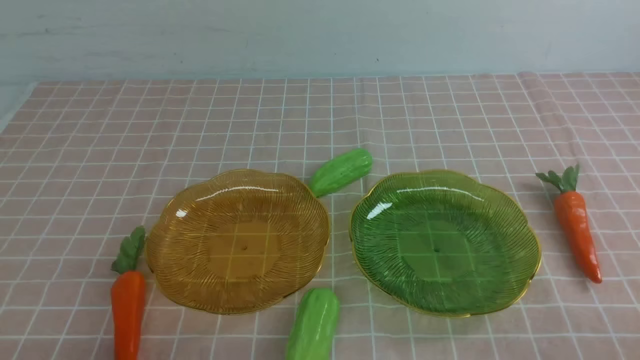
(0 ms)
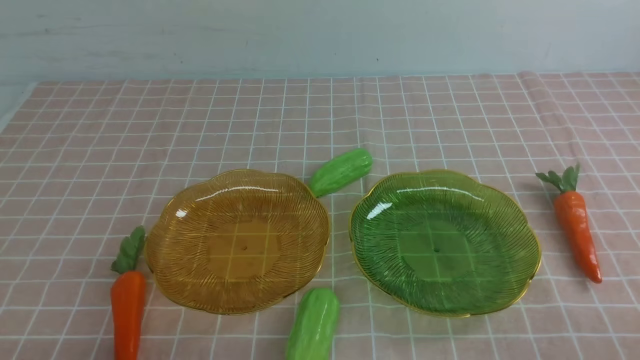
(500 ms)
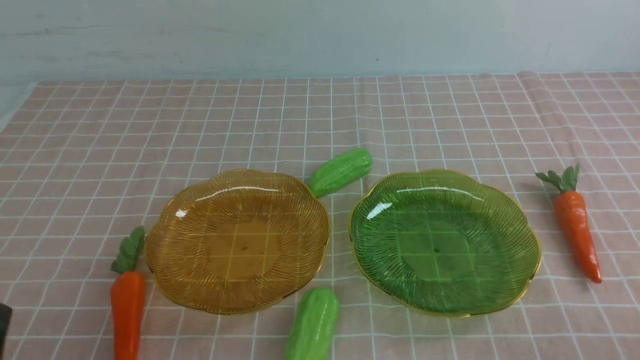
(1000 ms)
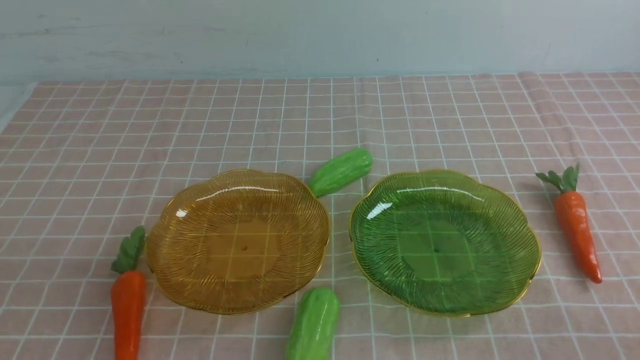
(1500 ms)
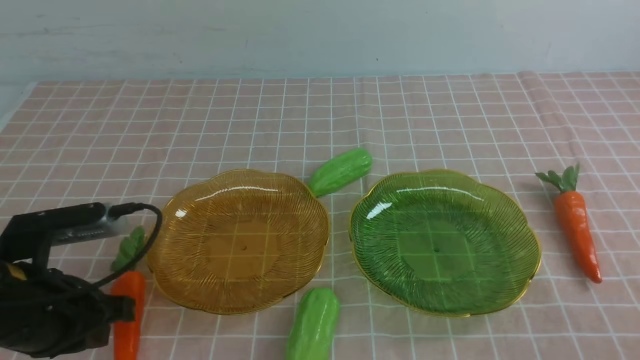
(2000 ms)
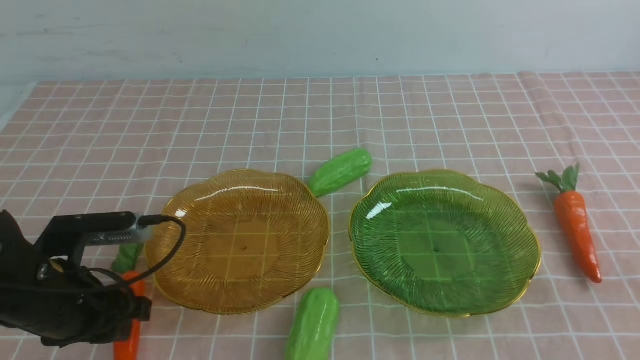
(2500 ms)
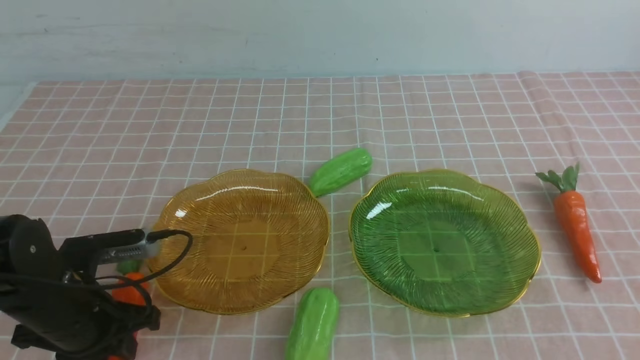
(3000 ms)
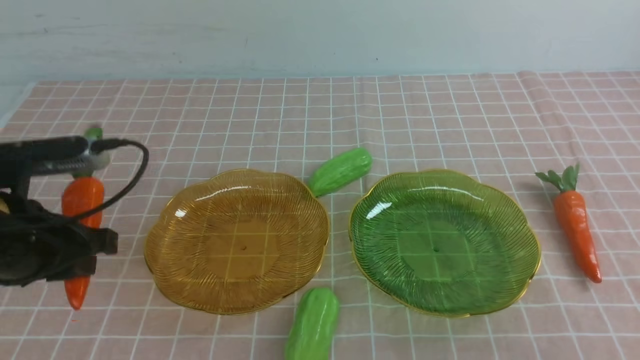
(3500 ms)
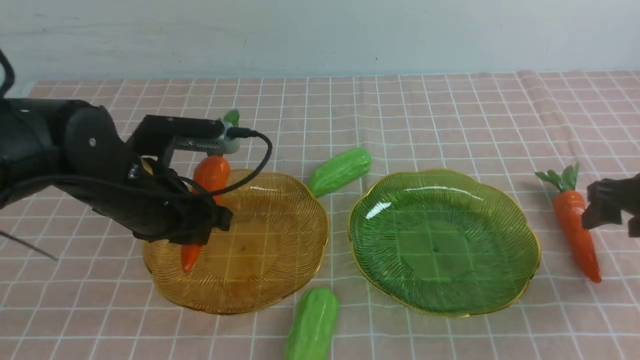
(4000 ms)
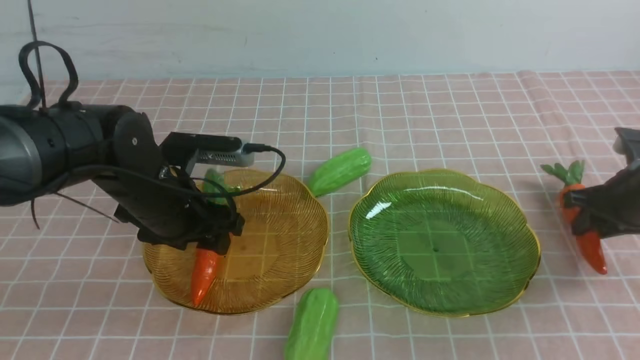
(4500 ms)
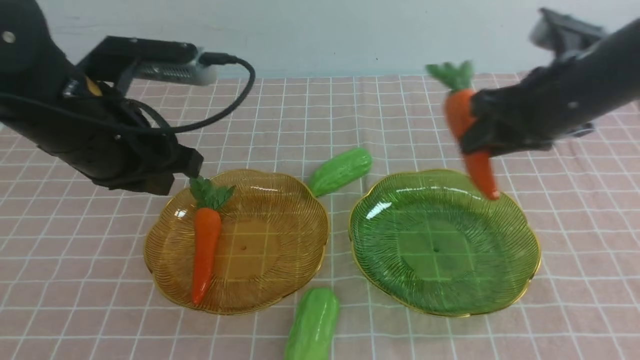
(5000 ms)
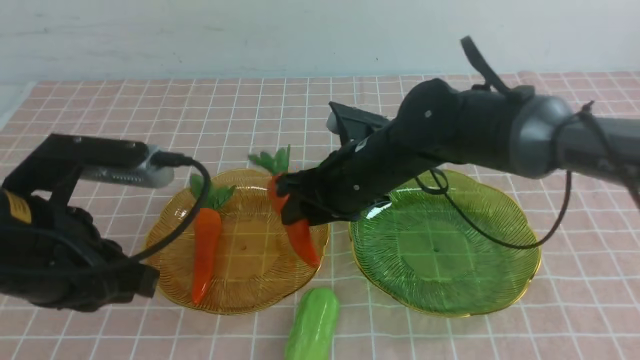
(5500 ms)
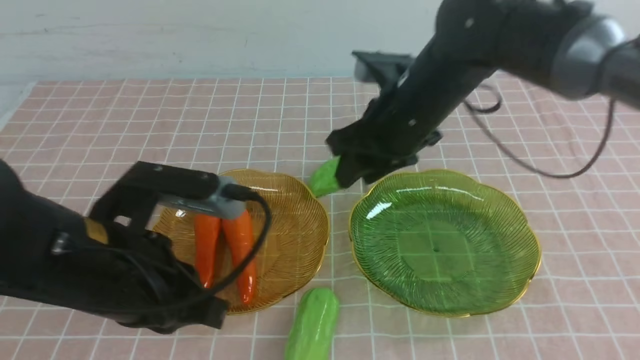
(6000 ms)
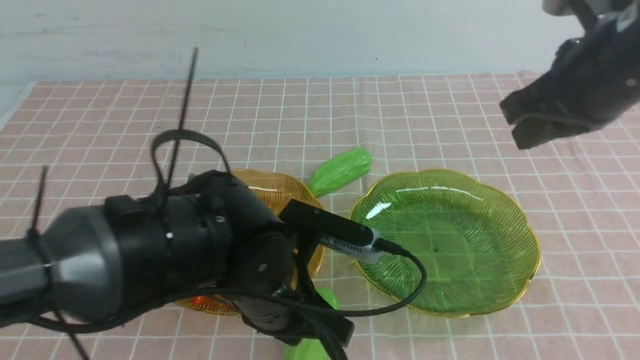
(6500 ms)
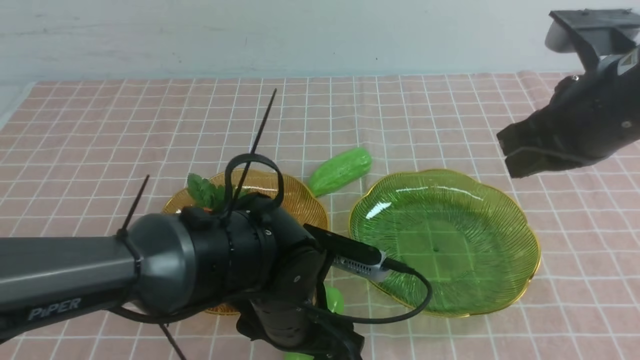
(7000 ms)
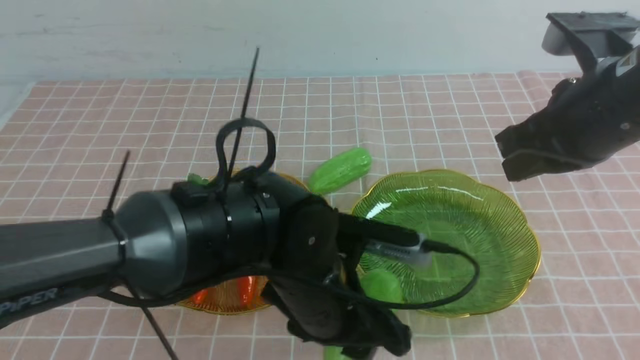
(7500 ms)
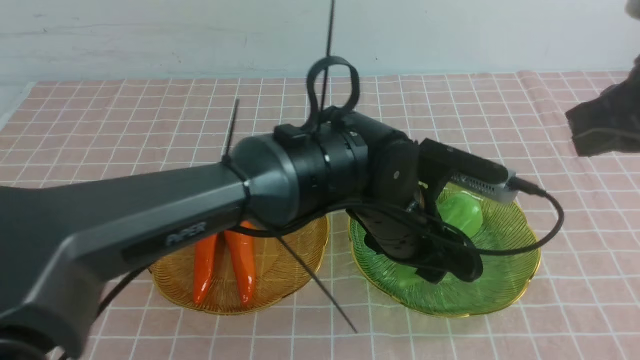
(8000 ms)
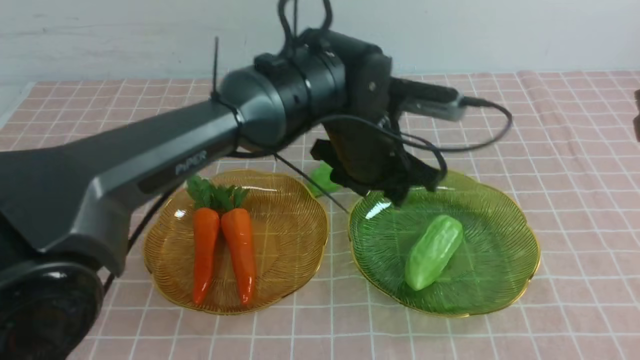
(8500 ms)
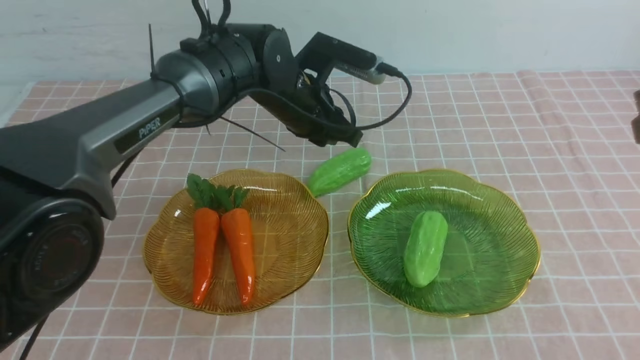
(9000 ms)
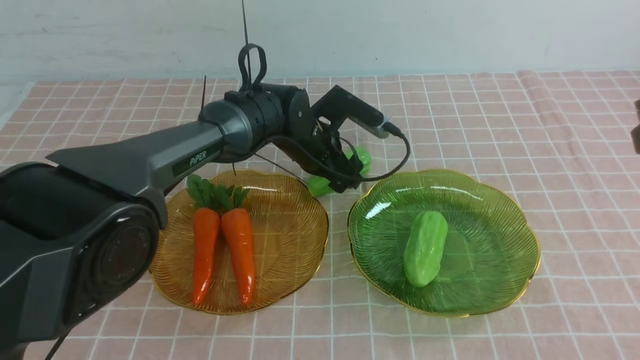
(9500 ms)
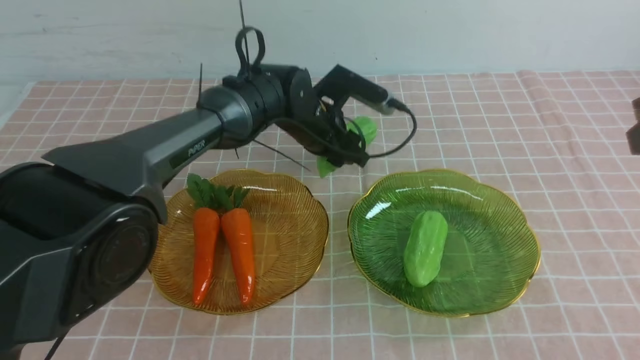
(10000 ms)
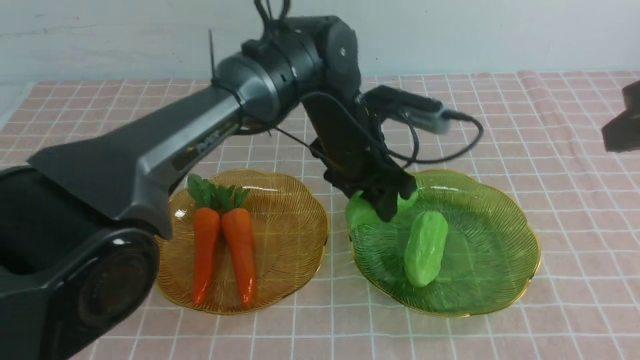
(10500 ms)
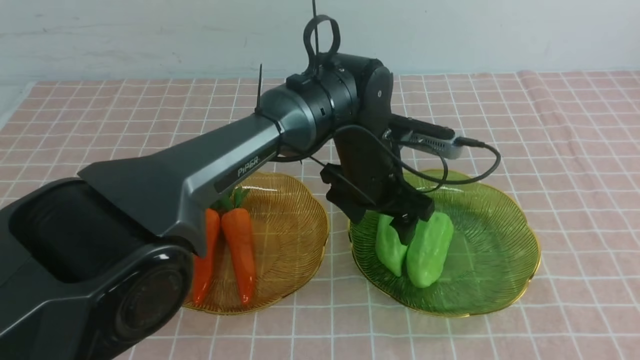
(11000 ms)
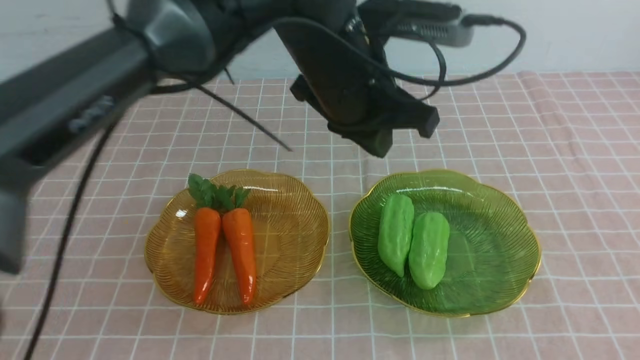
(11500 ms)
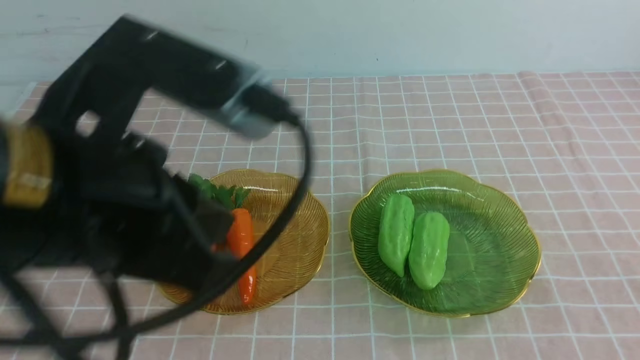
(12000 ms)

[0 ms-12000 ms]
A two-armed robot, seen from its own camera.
Step, 0 ms to 4500 ms: use the left arm to grab a carrot and put it into the left plate.
Step, 5000 ms to 5500 ms: use the right arm to grab a carrot and put it into the left plate.
Step, 6000 ms to 11000 ms: use the left arm to grab a chayote and put it into the right plate.
0 ms to 2000 ms: The left gripper heads forward and upward, covering approximately 15 cm.
2000 ms to 4000 ms: The right gripper goes roughly 30 cm forward, and opens its fingers. Meanwhile the left gripper is displaced forward and to the right by some 15 cm, and opens.
4000 ms to 6000 ms: The left gripper goes roughly 15 cm backward and to the right, and closes, while the right gripper moves upward and to the left, roughly 25 cm, and closes.
6000 ms to 8000 ms: The left gripper travels forward by roughly 20 cm, and opens and closes again. The right gripper moves backward and to the right, about 15 cm.
8000 ms to 10000 ms: The left gripper shifts some 5 cm downward, and opens up.
10000 ms to 12000 ms: The right gripper shifts roughly 20 cm backward; the left gripper moves backward and to the left, approximately 50 cm, and closes.

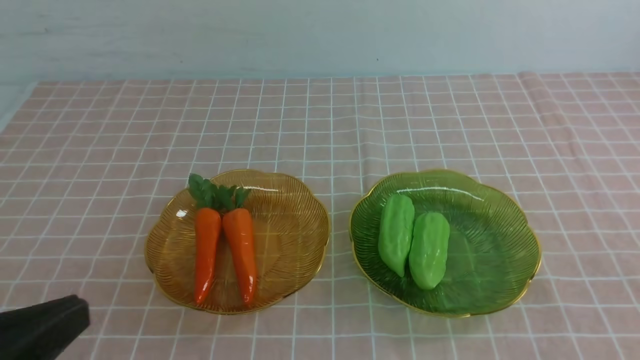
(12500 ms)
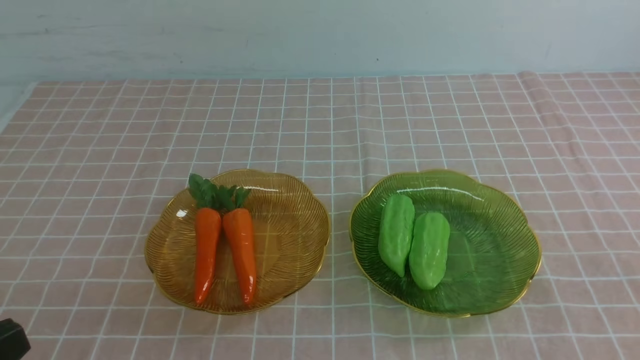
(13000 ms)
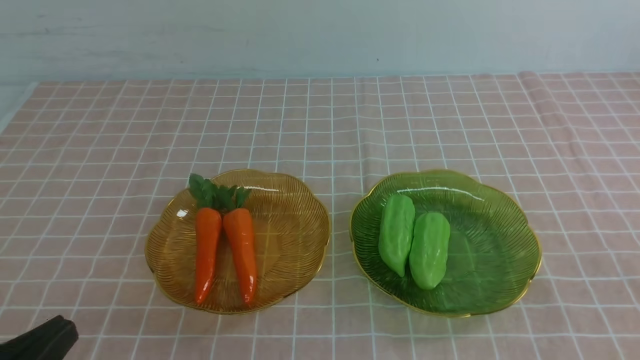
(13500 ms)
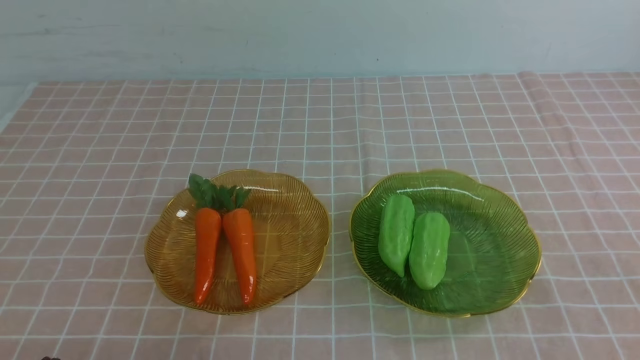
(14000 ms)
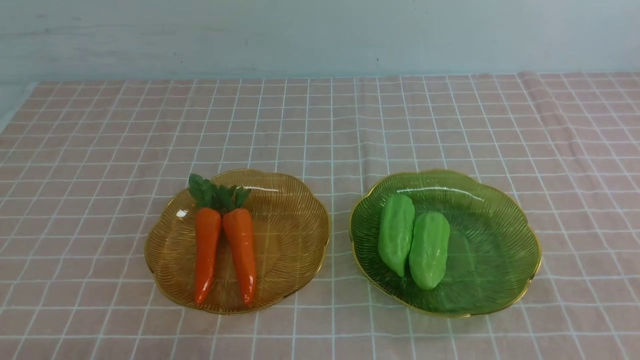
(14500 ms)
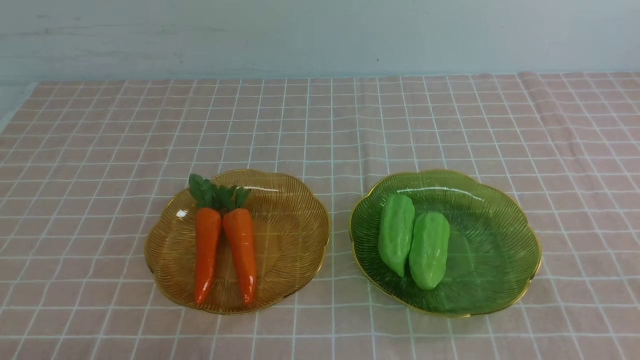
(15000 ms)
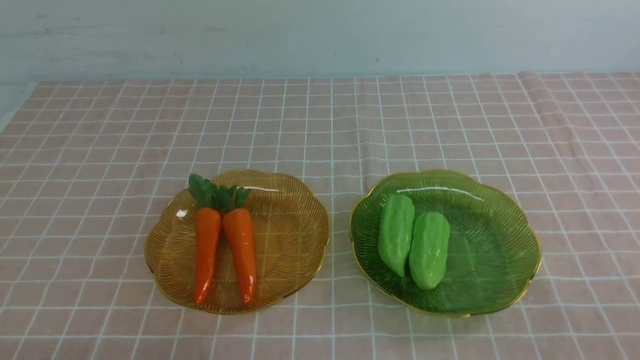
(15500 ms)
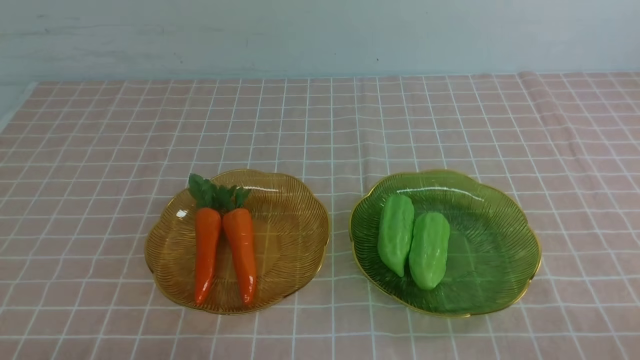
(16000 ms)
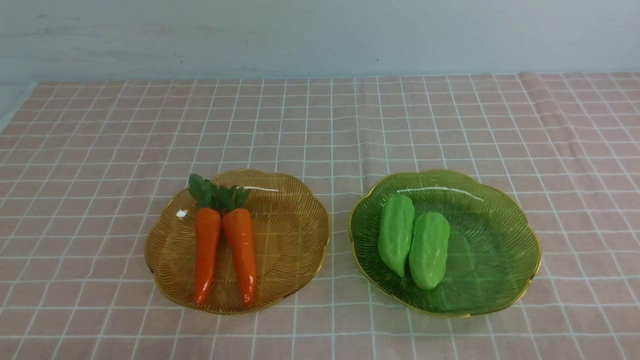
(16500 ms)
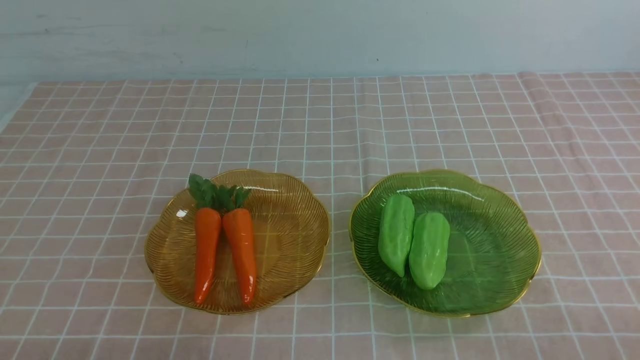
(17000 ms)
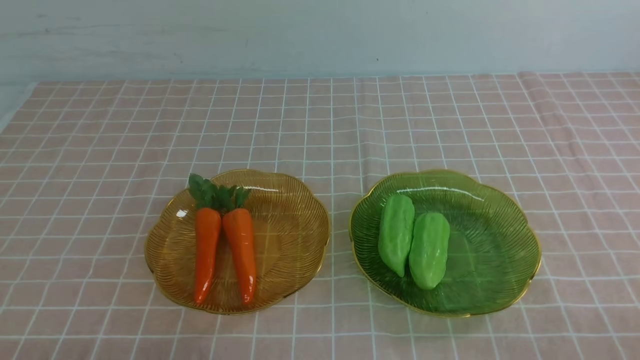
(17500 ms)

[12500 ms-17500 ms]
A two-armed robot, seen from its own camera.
12500 ms to 15000 ms: The left gripper shifts approximately 10 cm downward.
